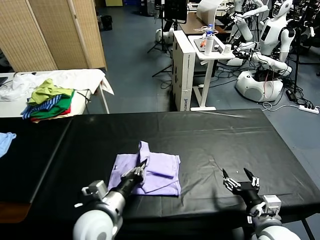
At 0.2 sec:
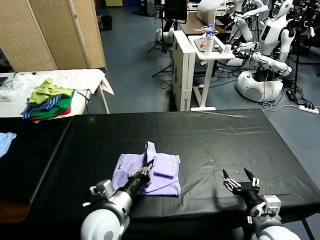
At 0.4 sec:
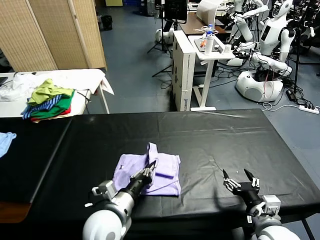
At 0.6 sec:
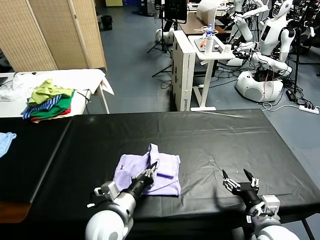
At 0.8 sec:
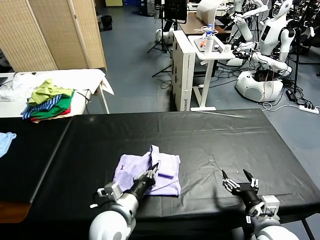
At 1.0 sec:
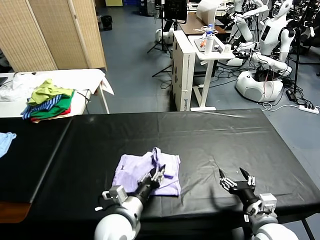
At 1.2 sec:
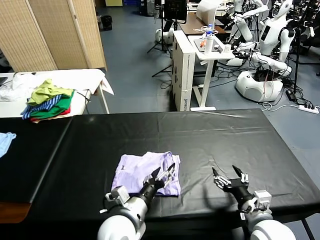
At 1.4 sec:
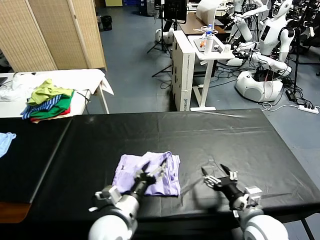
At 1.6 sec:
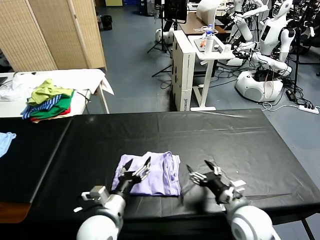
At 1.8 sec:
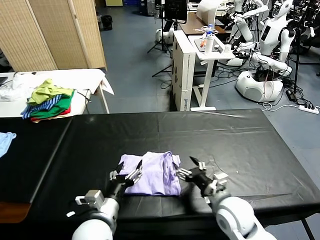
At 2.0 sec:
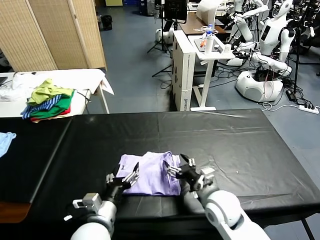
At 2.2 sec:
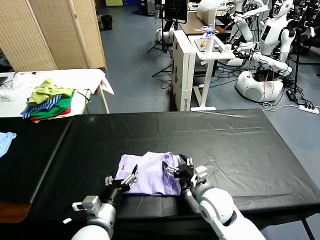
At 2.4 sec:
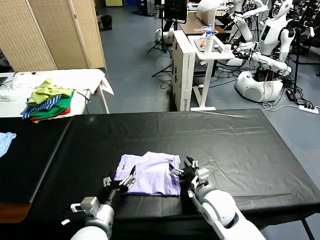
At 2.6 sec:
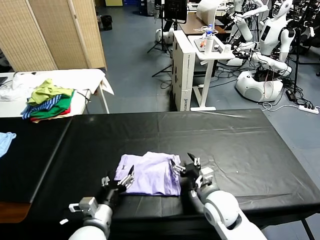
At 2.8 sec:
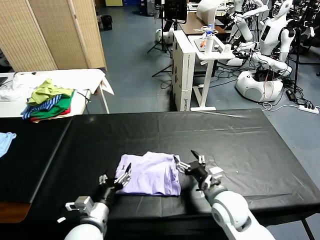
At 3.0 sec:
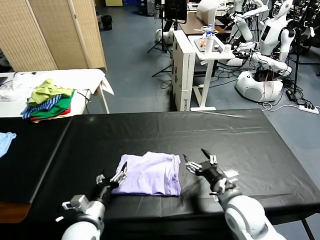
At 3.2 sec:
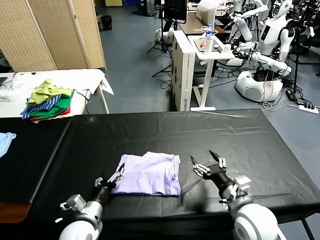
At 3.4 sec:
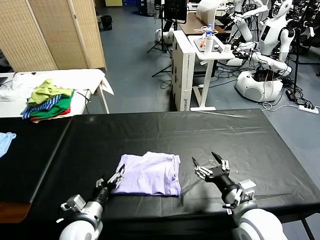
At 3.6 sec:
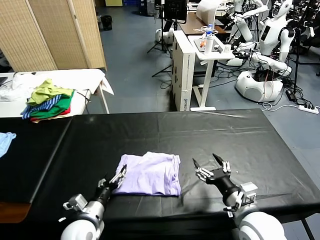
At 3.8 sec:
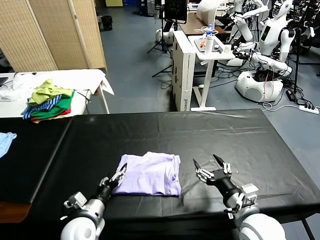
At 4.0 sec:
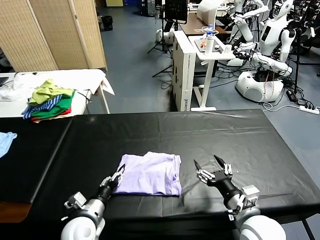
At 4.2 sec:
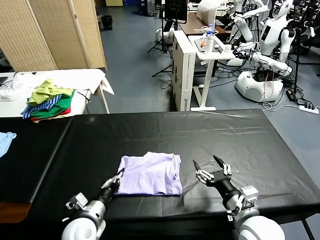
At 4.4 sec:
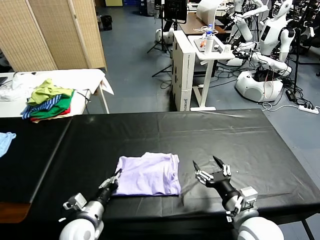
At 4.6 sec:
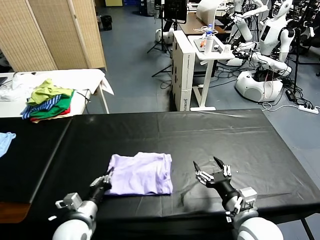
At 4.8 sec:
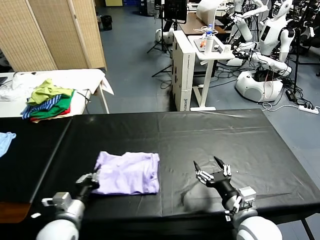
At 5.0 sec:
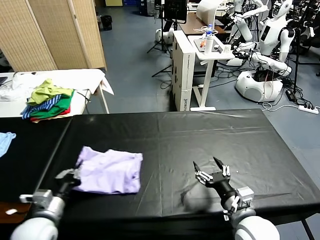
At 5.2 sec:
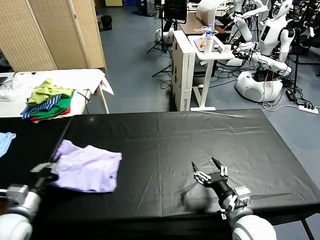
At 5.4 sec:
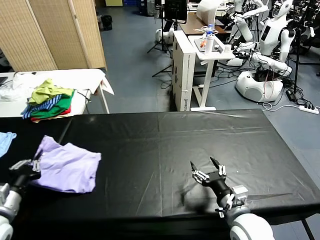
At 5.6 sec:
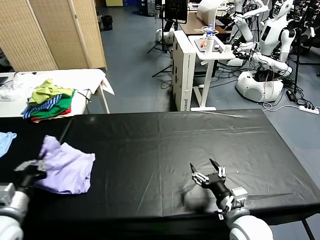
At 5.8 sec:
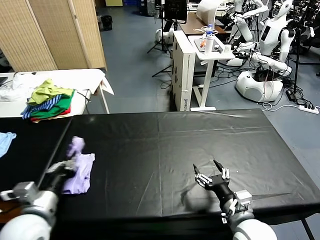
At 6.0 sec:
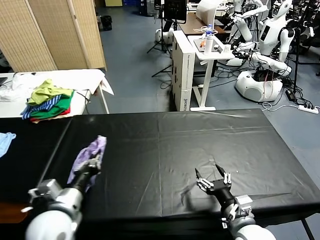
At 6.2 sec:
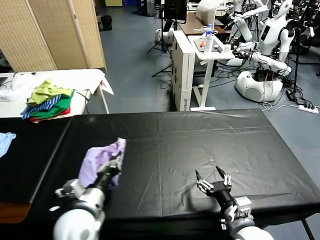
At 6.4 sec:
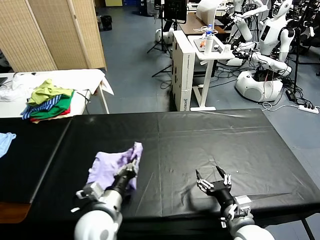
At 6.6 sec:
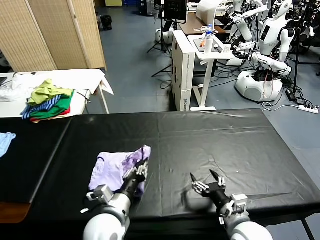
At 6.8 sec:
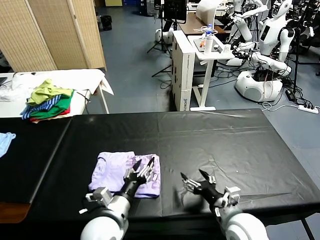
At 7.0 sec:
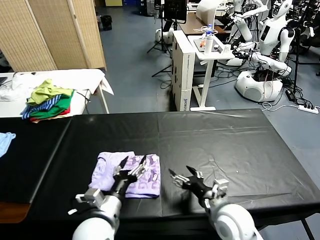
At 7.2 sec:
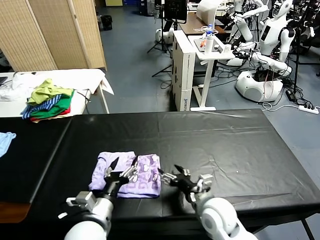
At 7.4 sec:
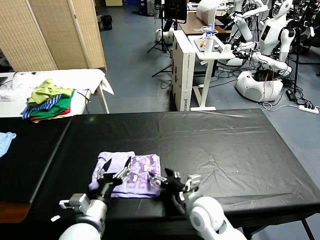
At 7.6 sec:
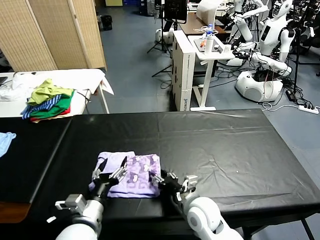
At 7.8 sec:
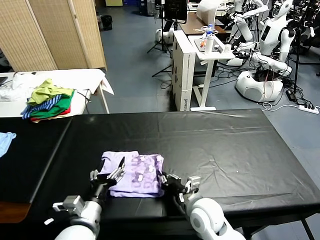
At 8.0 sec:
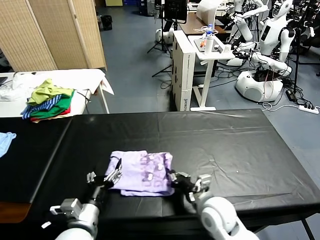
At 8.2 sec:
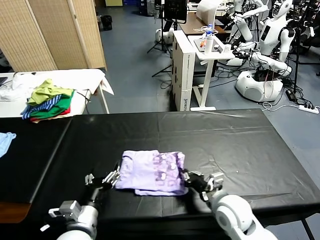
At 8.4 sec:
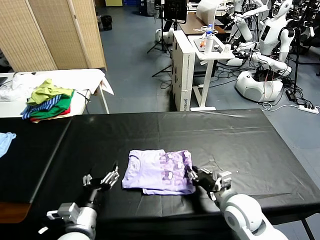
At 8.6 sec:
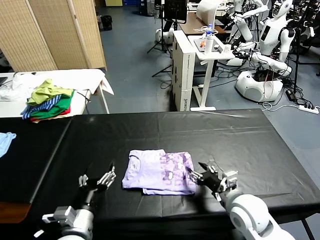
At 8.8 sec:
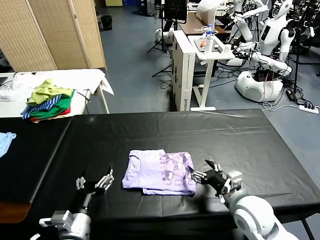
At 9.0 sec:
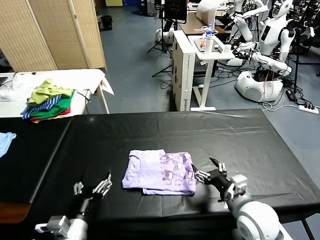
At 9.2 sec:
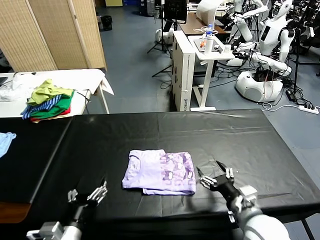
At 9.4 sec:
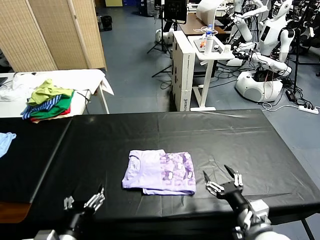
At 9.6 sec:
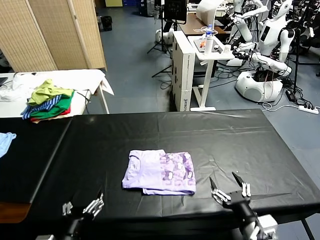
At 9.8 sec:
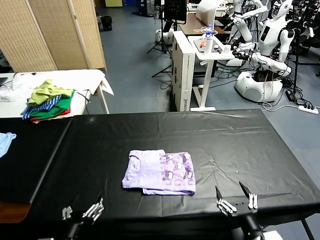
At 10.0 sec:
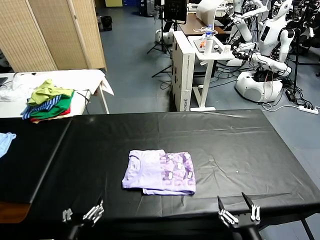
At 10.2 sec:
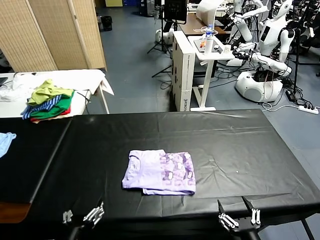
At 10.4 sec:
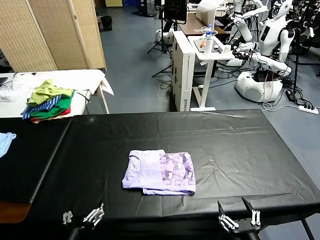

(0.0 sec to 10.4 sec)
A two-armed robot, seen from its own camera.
Task of the whole recording: fold and organize the clothes.
Step, 1.4 sec - 6.8 sec: Flip the folded clothes over with left gripper.
Step, 7.0 sec - 8.4 sec: Drag the clothes to the center of the table.
0.0 sec - 1.4 sec: The left gripper opens up.
1.4 sec - 3.0 sec: The right gripper travels to the left and back again, about 10 cm each way; the left gripper is displaced to the left and downward by approximately 10 cm.
3.0 sec - 4.4 sec: The right gripper moves backward, about 5 cm, while the left gripper closes.
4.4 sec - 6.0 sec: The left gripper moves upward, approximately 15 cm.
6.0 sec - 7.4 sec: The right gripper is displaced to the left and forward by roughly 15 cm. Meanwhile the left gripper goes some 10 cm to the right and downward, and opens.
7.4 sec - 9.0 sec: The right gripper heads to the right and upward, covering about 15 cm, and closes, then opens again; the left gripper shifts by roughly 5 cm.
9.0 sec - 10.4 sec: The left gripper travels backward by approximately 5 cm. The right gripper moves backward, some 20 cm.
